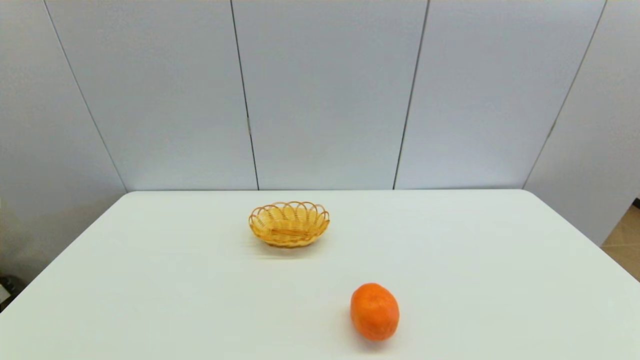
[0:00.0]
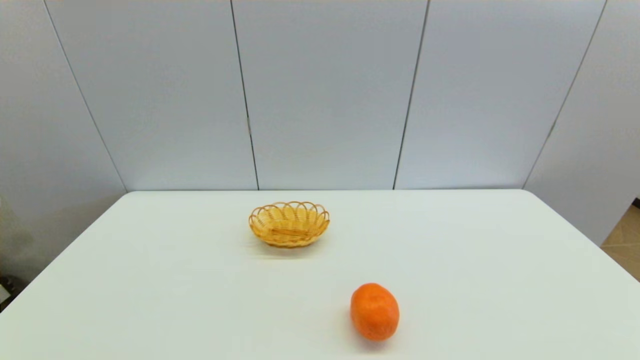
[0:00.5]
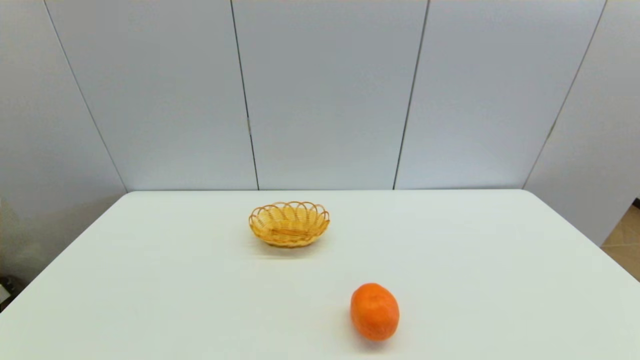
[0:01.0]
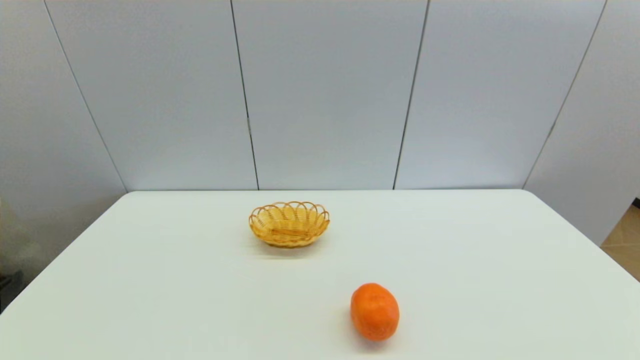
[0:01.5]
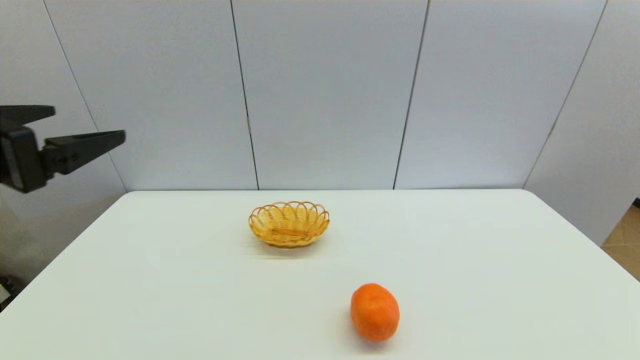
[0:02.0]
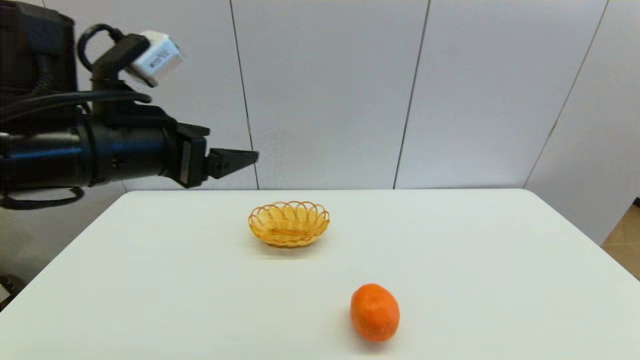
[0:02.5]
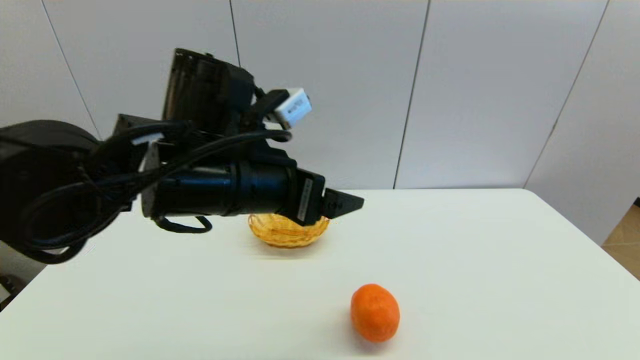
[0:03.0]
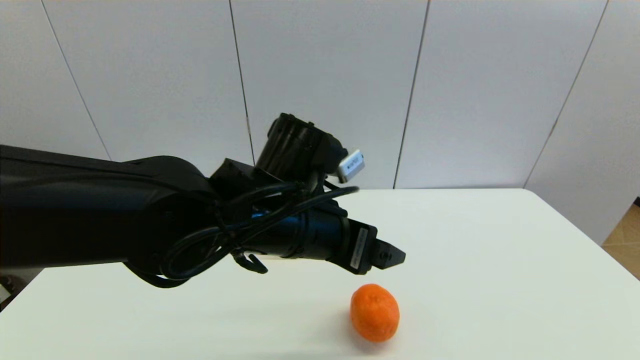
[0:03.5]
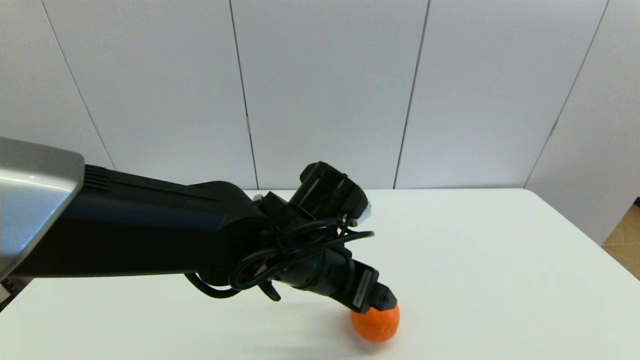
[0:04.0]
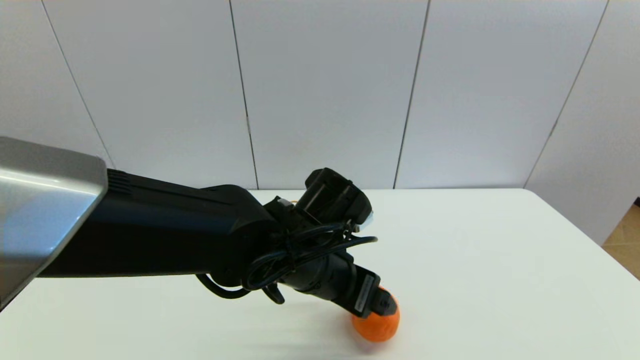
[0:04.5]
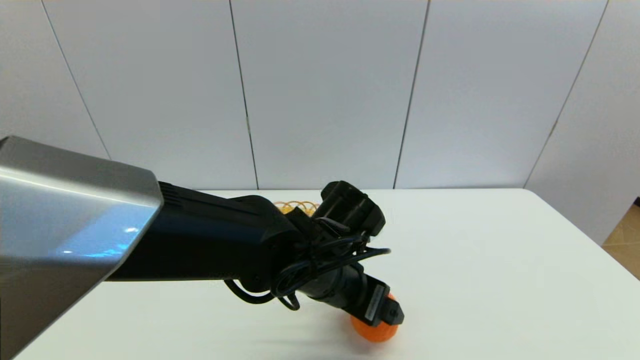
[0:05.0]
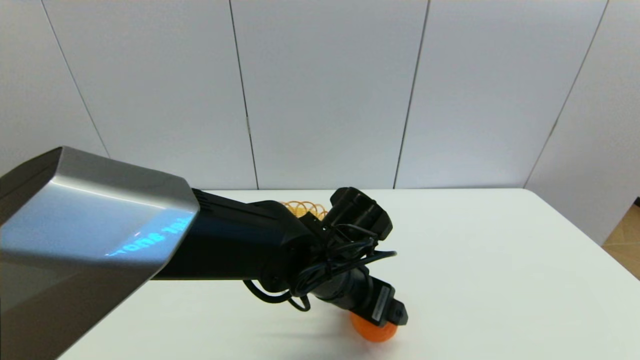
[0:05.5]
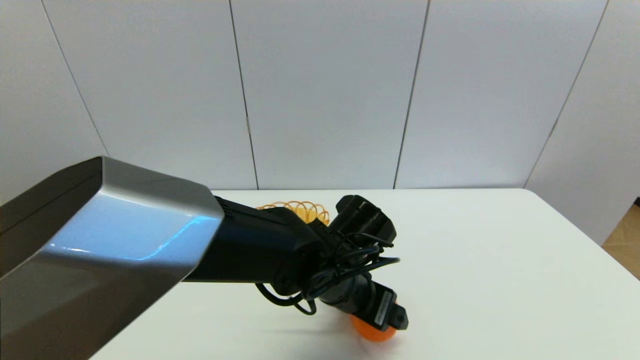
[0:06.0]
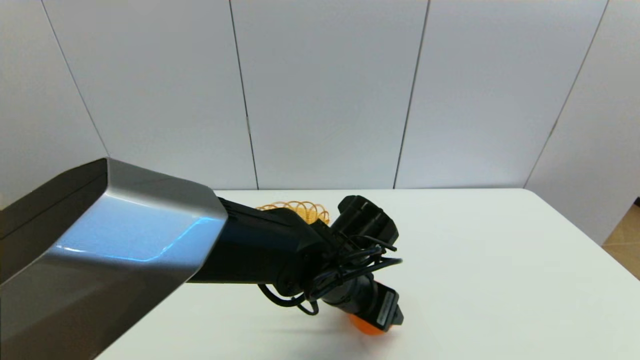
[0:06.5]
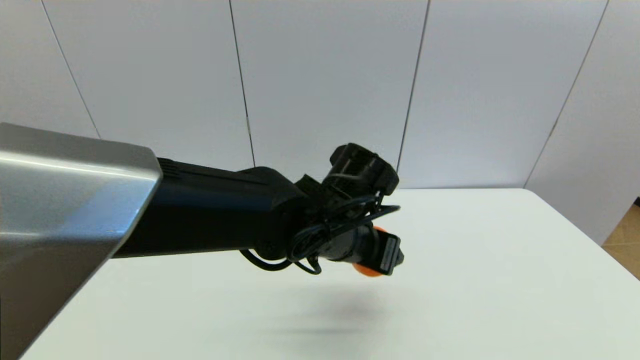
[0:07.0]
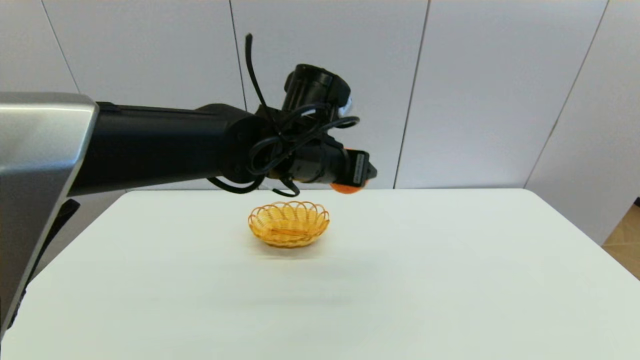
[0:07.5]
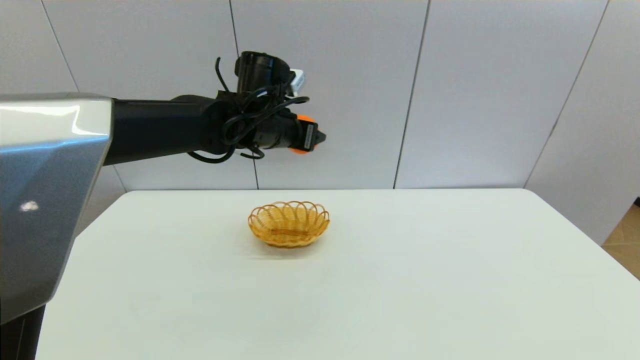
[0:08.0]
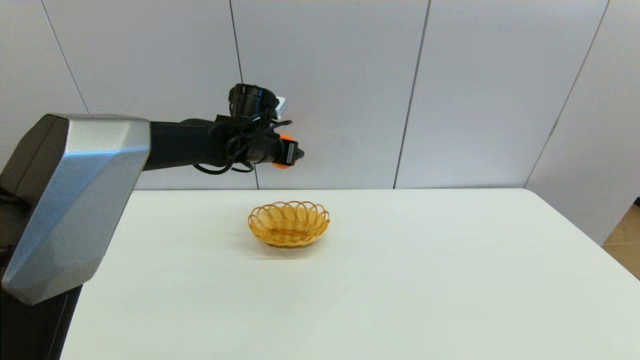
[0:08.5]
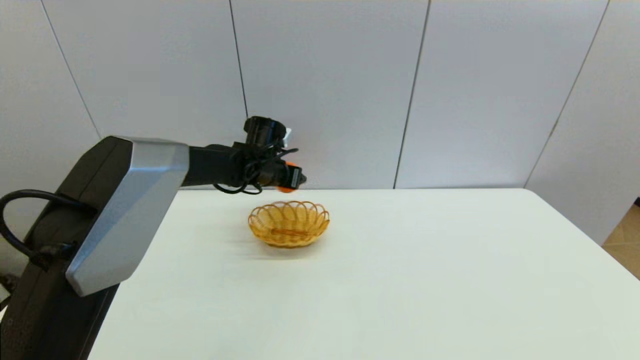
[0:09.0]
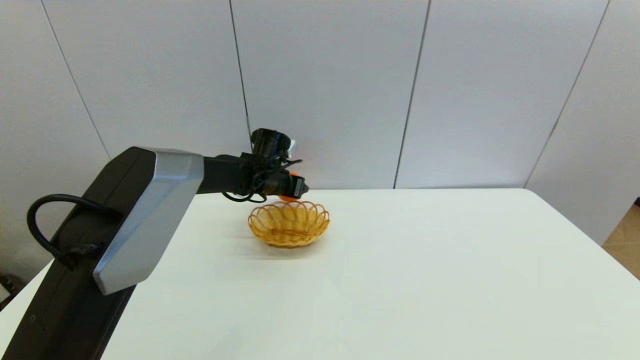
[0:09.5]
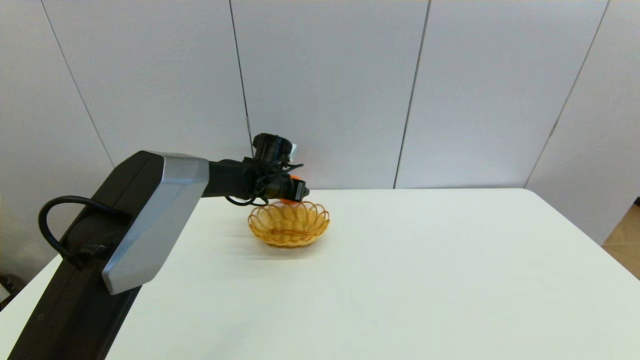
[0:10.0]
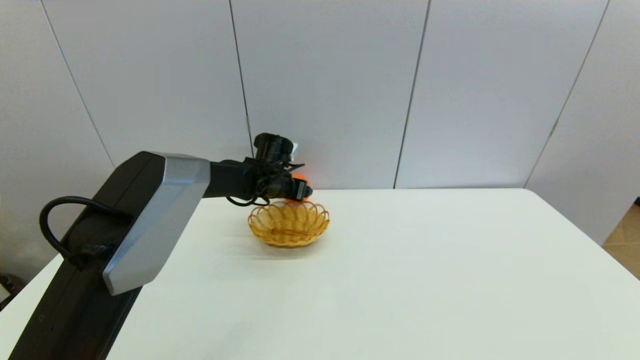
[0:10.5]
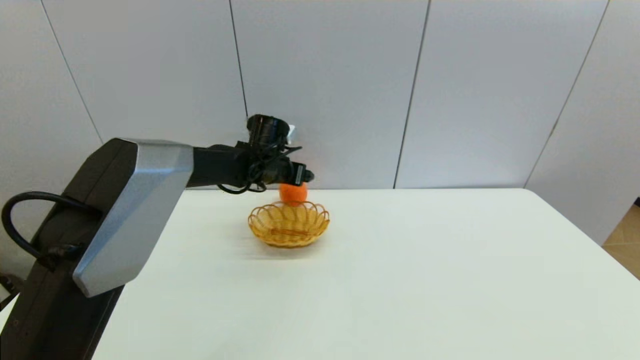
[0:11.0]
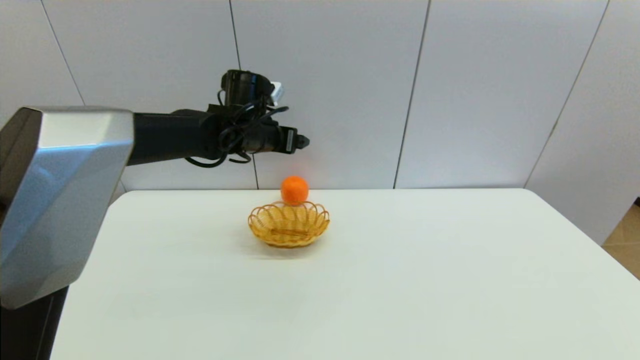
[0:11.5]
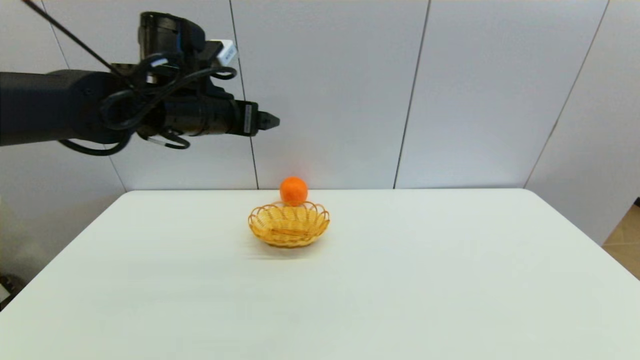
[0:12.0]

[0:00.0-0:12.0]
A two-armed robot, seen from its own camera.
Step, 0:01.5 to 0:06.0: Grasp the orange with left gripper.
Step, 0:06.5 to 0:10.5: Place the orange on the table with left gripper.
0:00.0 to 0:02.0: The left gripper moves upward and forward, some 30 cm.
0:02.0 to 0:04.0: The left gripper travels to the right and downward by approximately 30 cm.
0:04.0 to 0:06.0: The left gripper goes approximately 5 cm downward.
0:06.0 to 0:08.0: The left gripper travels forward, upward and to the left by approximately 25 cm, and closes up.
0:08.0 to 0:10.0: The left gripper heads downward and forward, covering approximately 15 cm.
0:10.0 to 0:12.0: The left gripper heads upward and backward, covering about 25 cm, and opens its fingers.

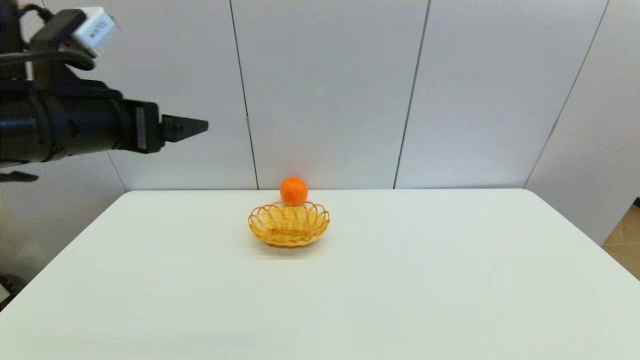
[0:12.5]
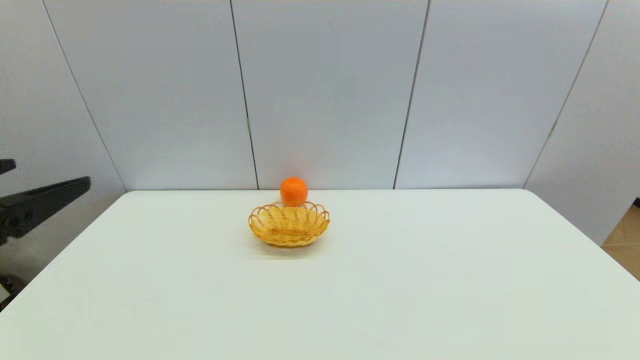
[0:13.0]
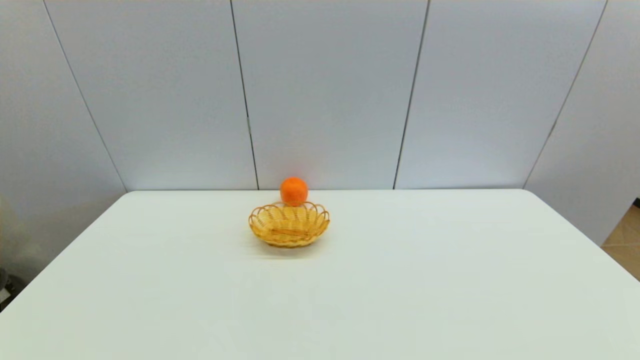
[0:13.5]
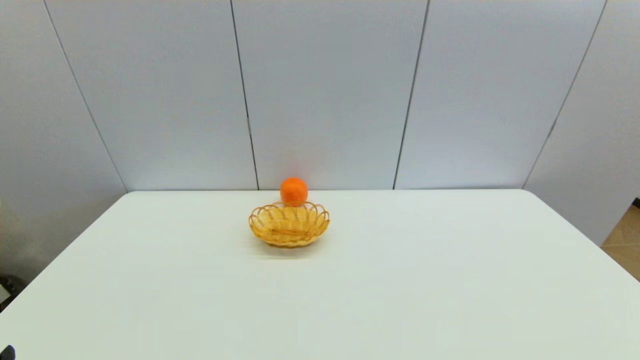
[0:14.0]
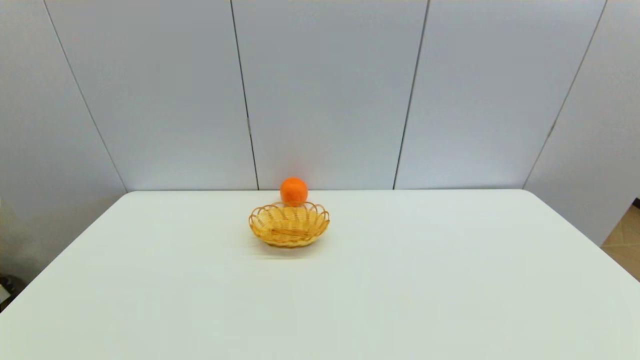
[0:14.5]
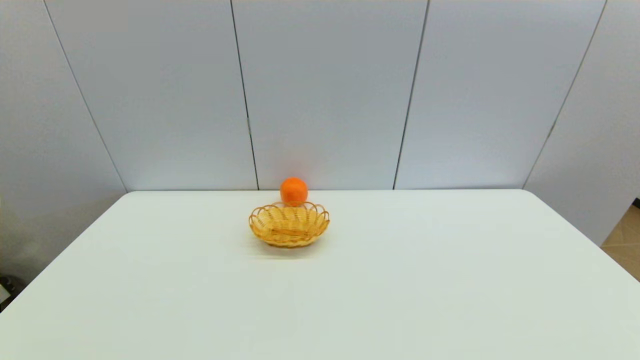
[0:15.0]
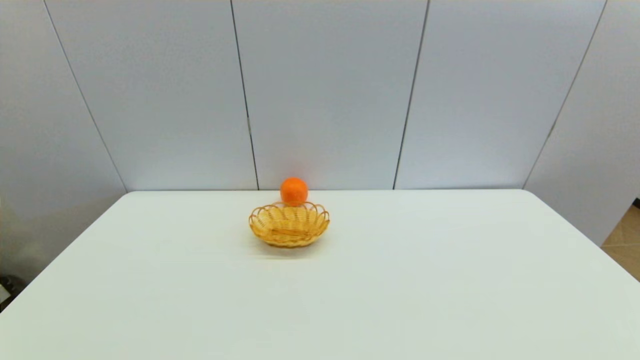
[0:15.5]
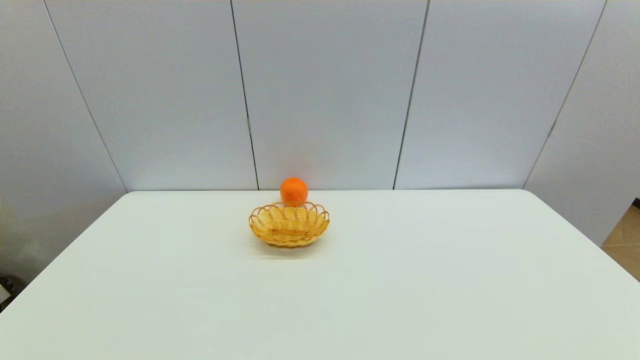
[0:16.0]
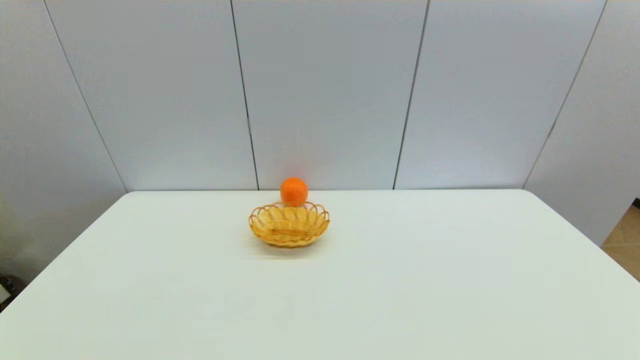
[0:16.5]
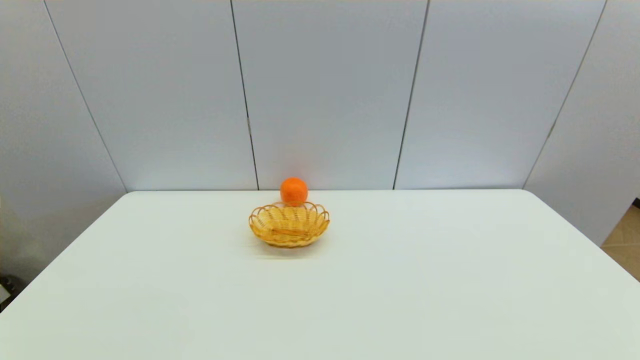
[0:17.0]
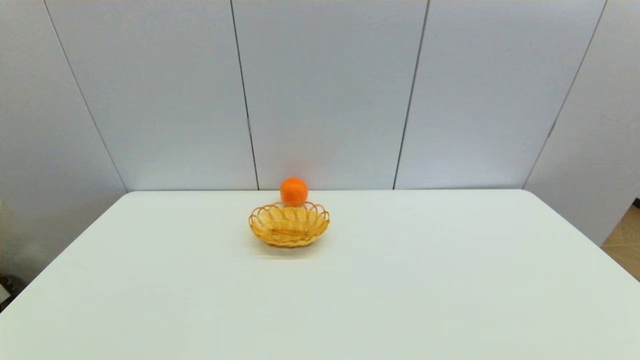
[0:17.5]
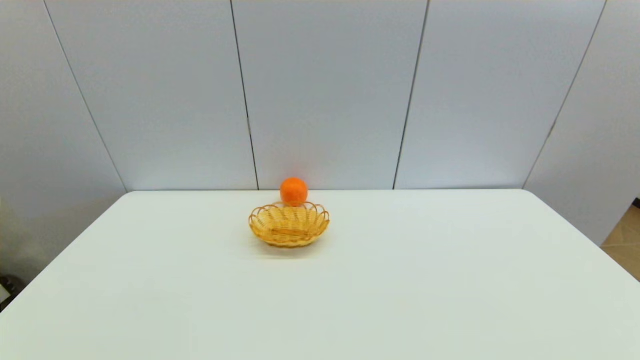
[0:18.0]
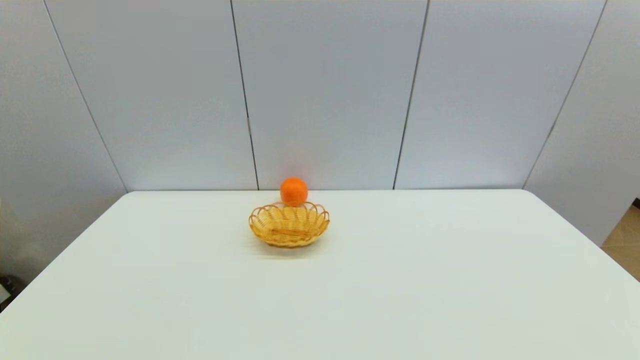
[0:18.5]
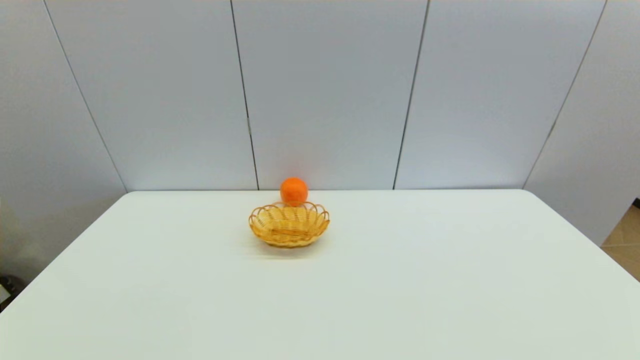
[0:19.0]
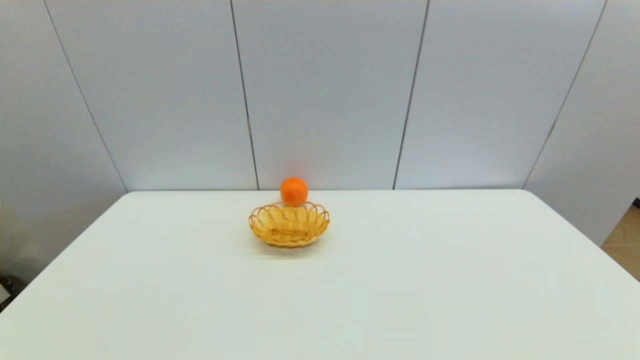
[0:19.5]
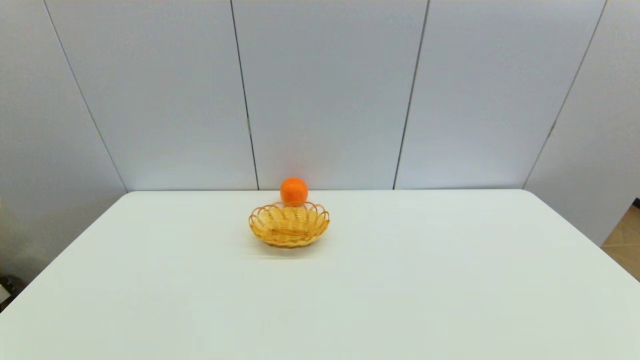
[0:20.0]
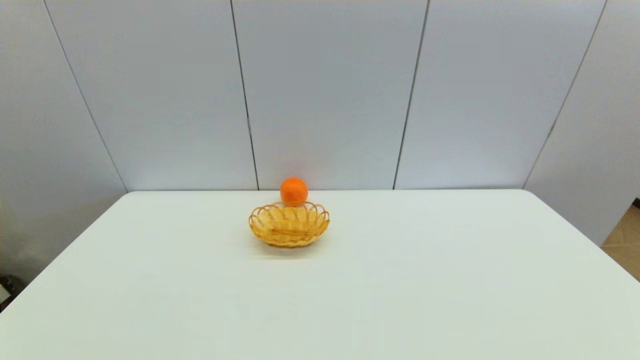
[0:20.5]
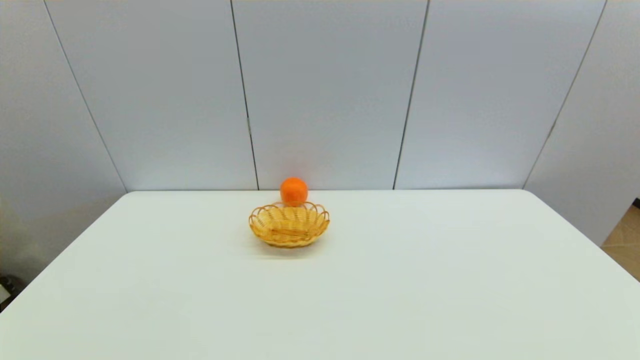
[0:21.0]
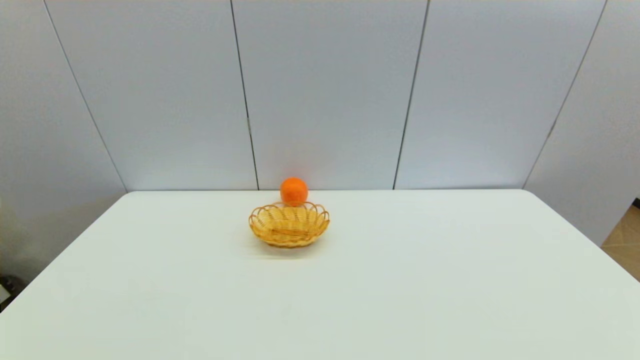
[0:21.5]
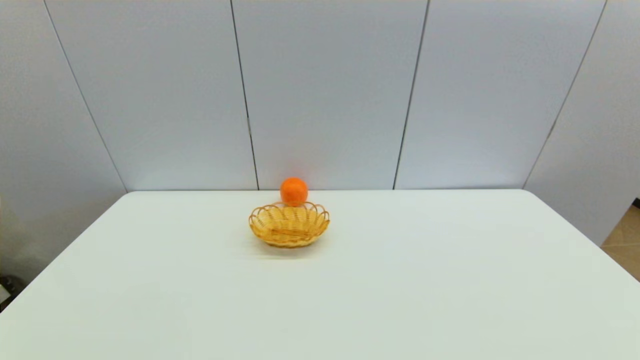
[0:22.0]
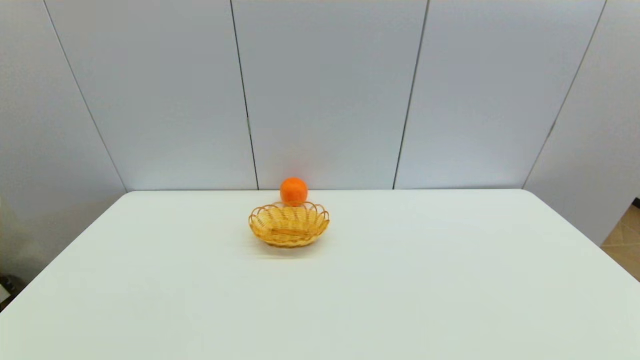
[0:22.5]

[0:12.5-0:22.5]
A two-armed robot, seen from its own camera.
0:12.5 to 0:14.5: The left gripper heads backward and downward, covering roughly 35 cm.
0:16.5 to 0:22.5: Both grippers stay about where they are.
